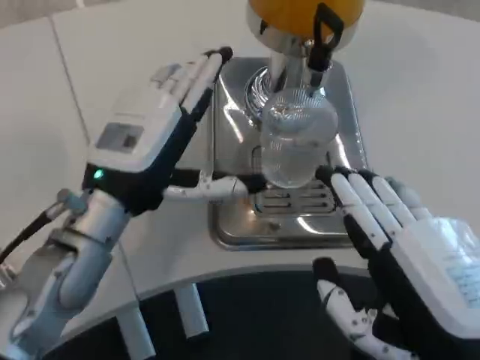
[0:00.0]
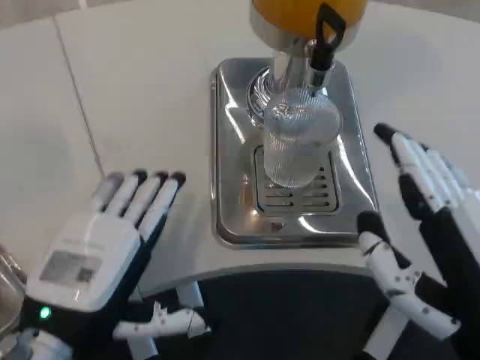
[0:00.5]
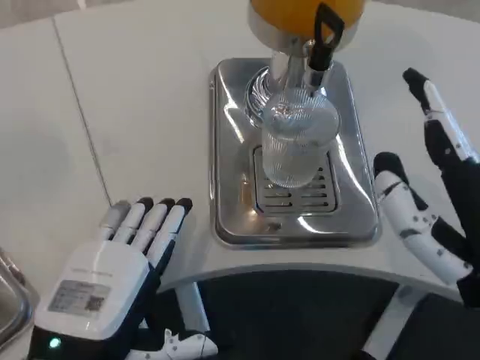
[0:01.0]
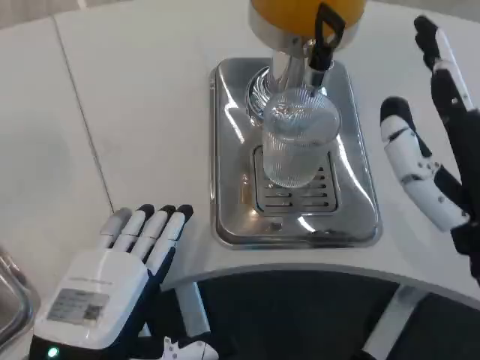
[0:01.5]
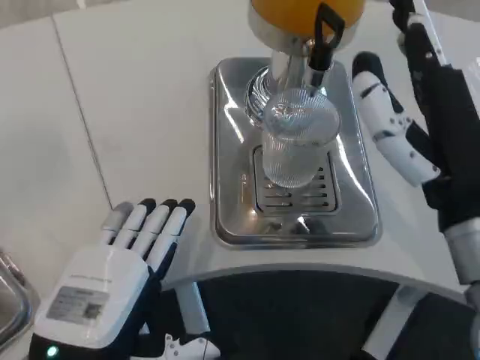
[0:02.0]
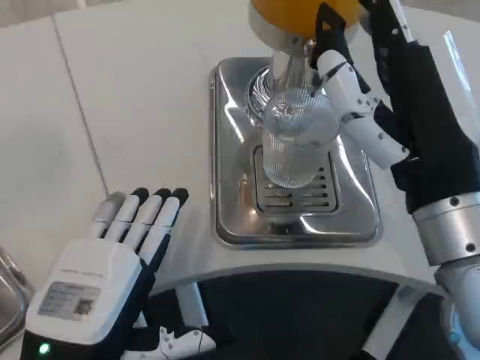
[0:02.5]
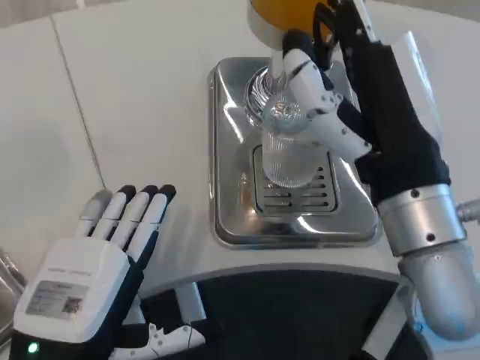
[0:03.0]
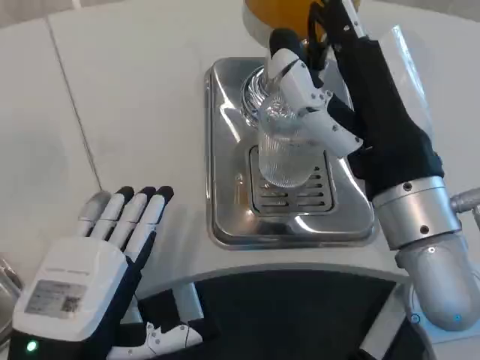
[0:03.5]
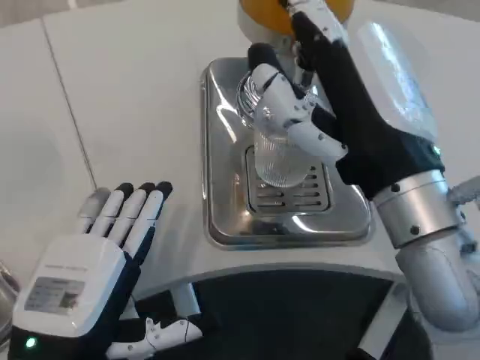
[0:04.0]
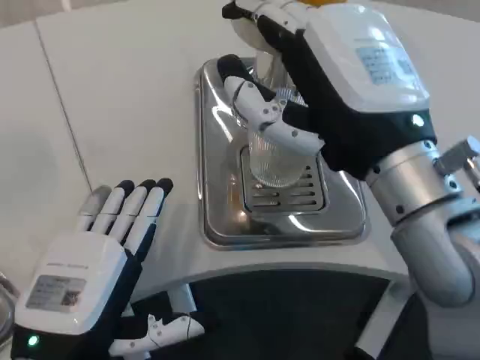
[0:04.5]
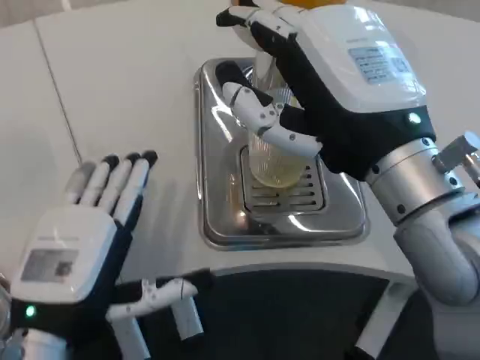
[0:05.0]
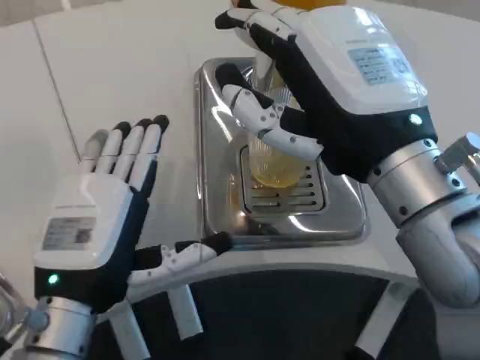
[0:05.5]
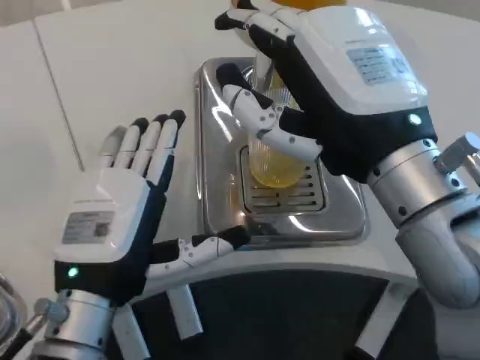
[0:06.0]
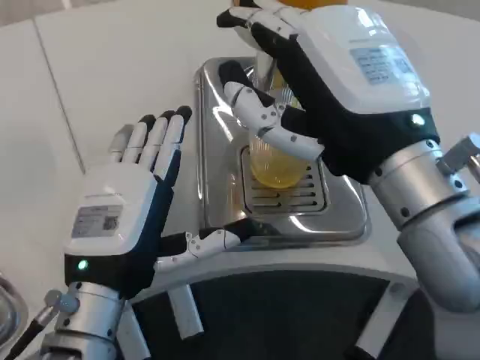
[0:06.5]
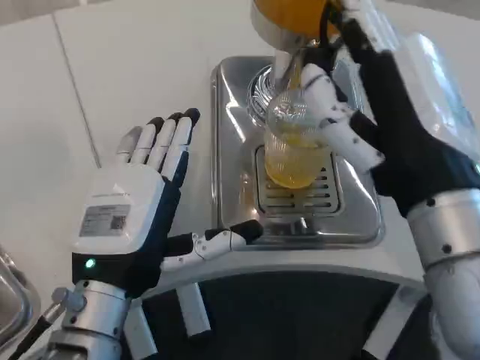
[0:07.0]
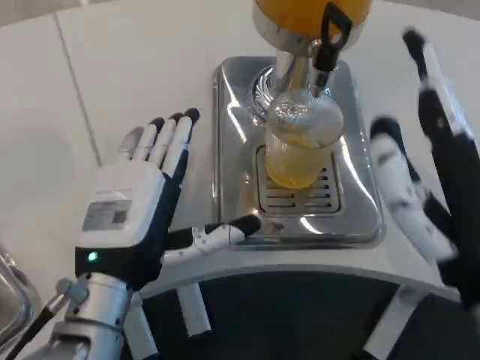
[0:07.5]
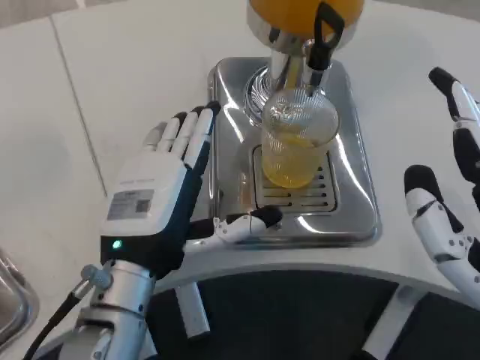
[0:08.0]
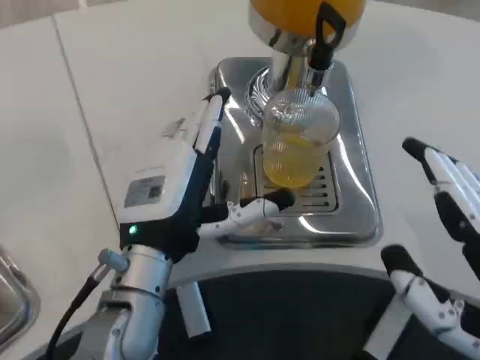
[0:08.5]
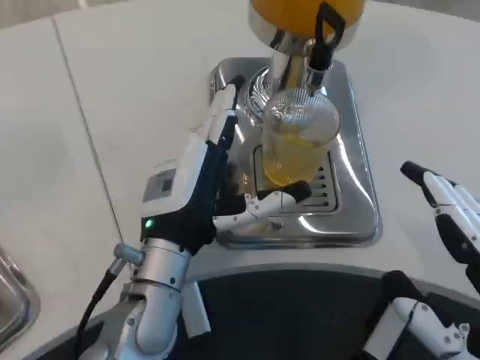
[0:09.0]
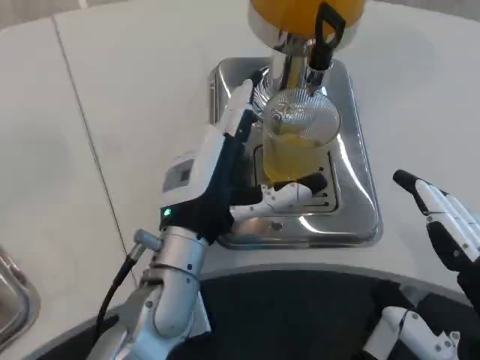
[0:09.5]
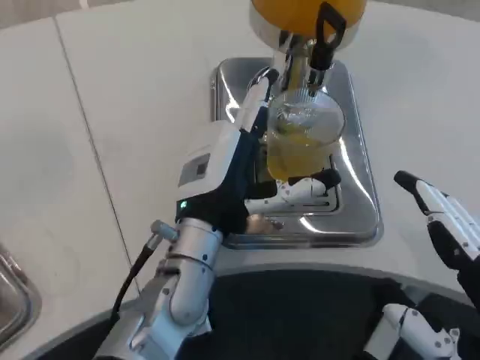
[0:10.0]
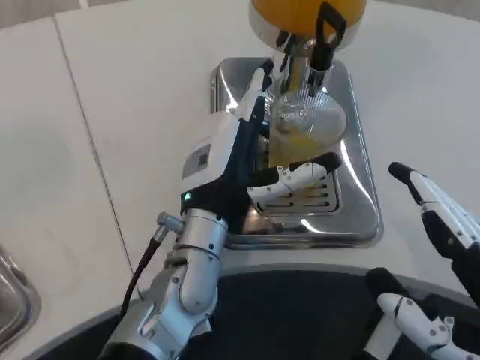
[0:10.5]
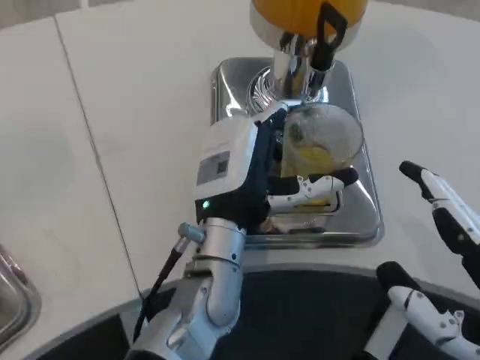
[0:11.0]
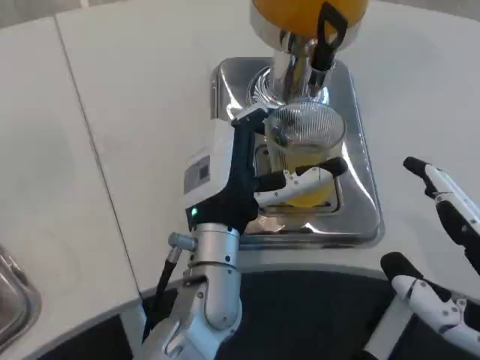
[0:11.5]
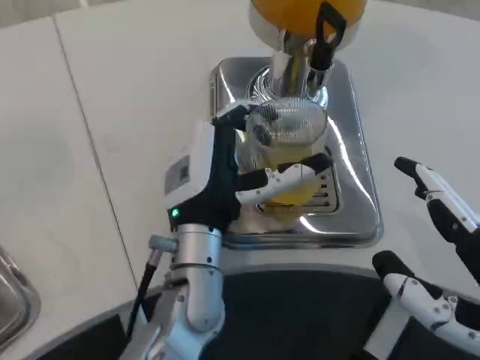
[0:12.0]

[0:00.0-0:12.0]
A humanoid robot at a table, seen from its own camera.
Task of the whole recording: Grasp the cup under the faucet to collect the drink, then remove the cup.
0:00.0 to 0:02.0: The left hand shifts roughly 15 cm backward and downward. Meanwhile the right hand travels forward by approximately 10 cm.
0:04.0 to 0:06.0: The left hand travels forward by approximately 5 cm.
0:06.0 to 0:08.0: The right hand goes roughly 15 cm backward, to the right and downward.
0:08.0 to 0:10.0: The left hand shifts about 10 cm forward and to the right.
0:10.0 to 0:12.0: The hands stay close to where they were, moving slightly.

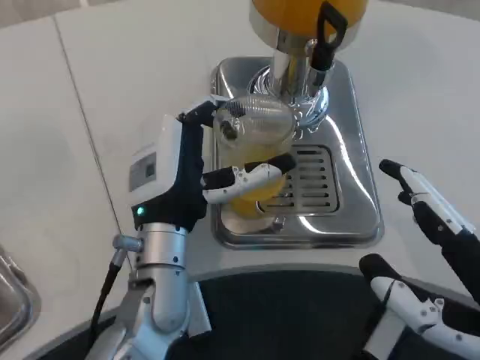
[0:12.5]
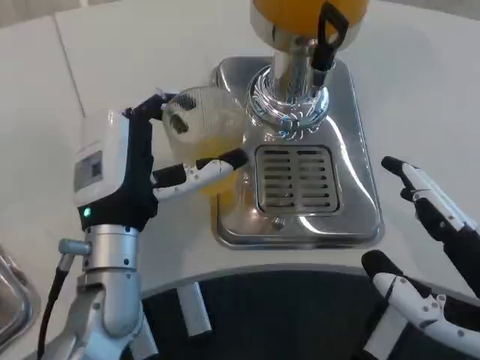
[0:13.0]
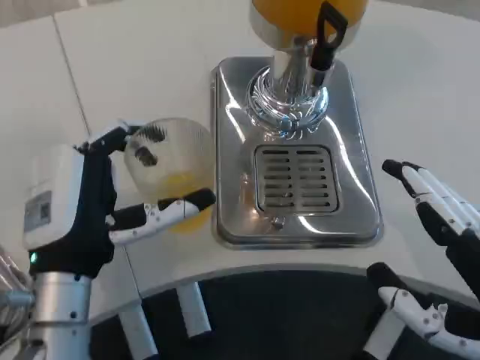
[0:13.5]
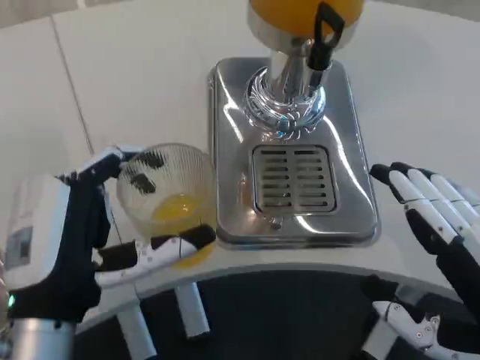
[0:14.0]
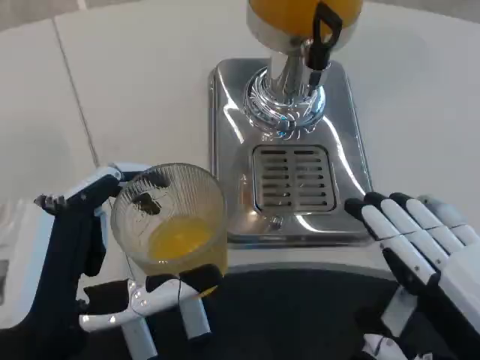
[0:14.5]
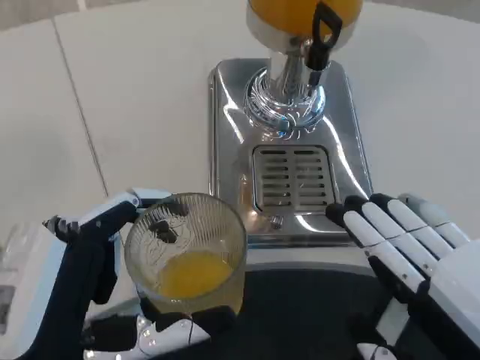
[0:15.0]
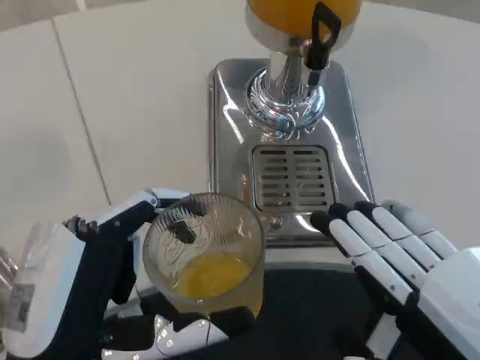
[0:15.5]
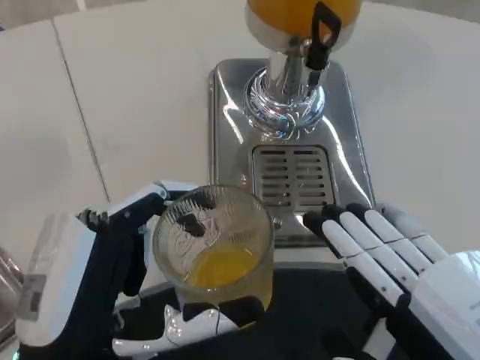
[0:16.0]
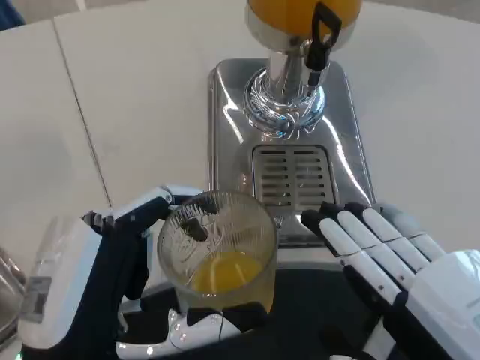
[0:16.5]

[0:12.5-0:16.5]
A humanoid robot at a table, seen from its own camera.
Task of the whole recording: Grasp the cup under the faucet to collect the drink, then remove the cup.
0:12.5 to 0:14.5: The left hand moves backward and to the left, about 15 cm.

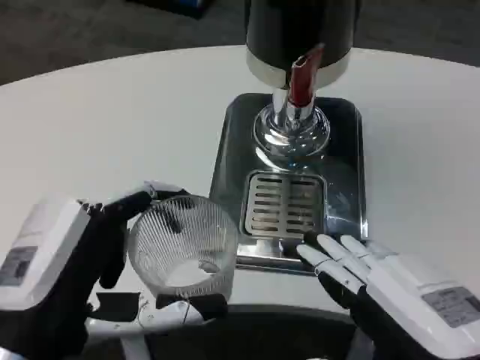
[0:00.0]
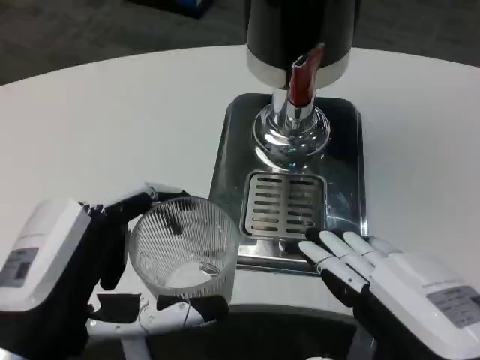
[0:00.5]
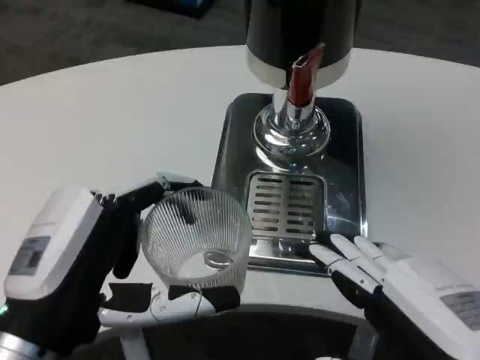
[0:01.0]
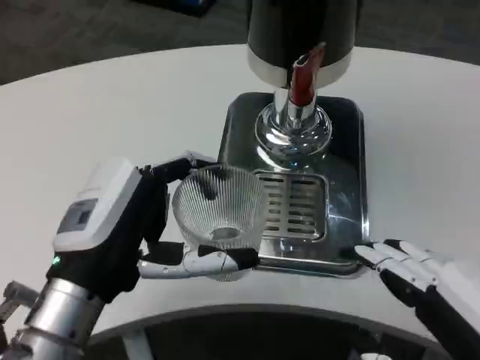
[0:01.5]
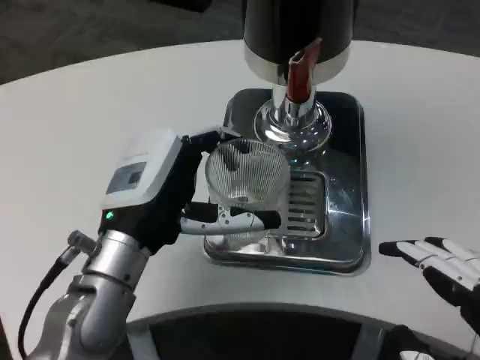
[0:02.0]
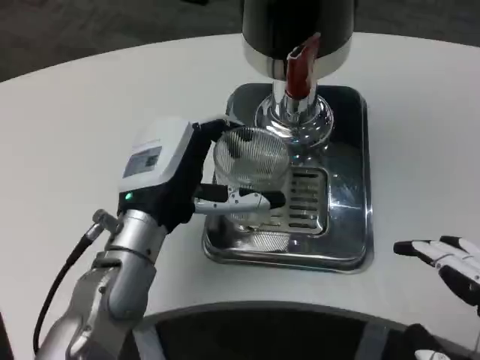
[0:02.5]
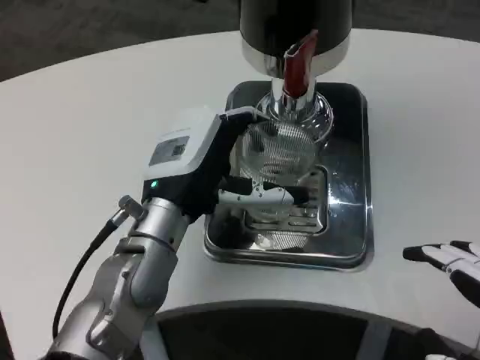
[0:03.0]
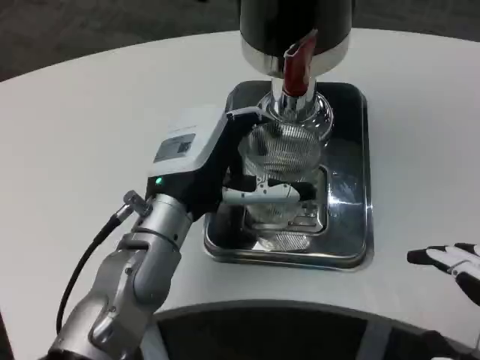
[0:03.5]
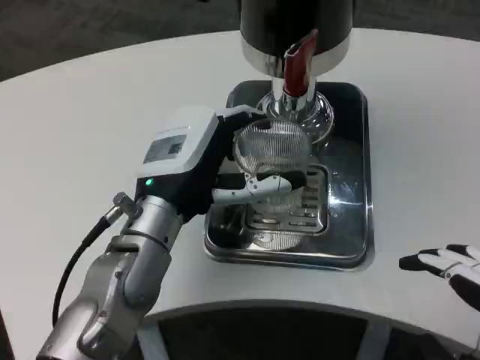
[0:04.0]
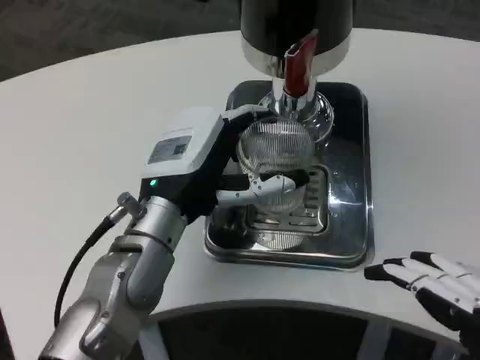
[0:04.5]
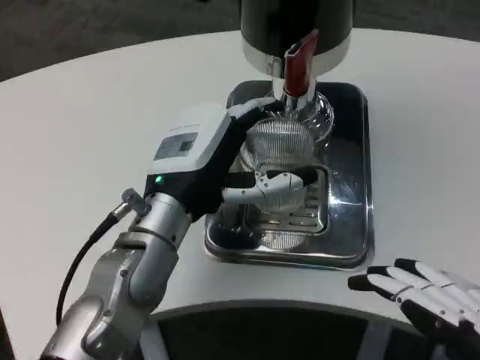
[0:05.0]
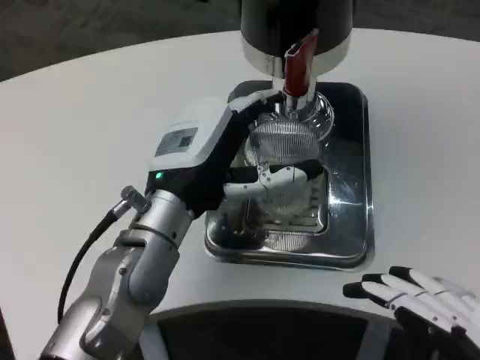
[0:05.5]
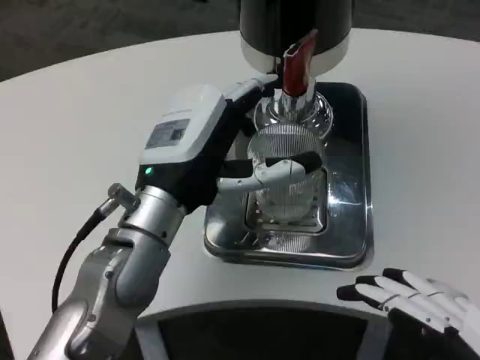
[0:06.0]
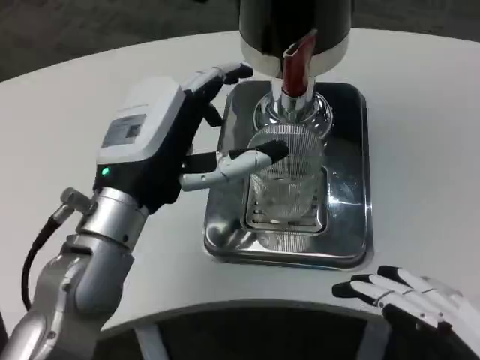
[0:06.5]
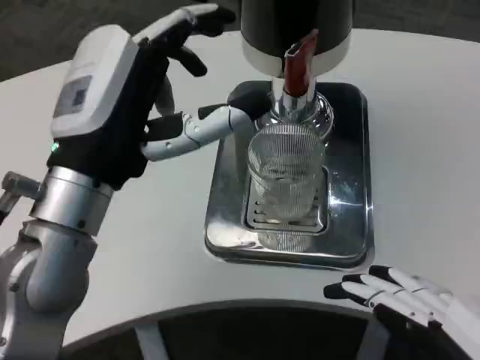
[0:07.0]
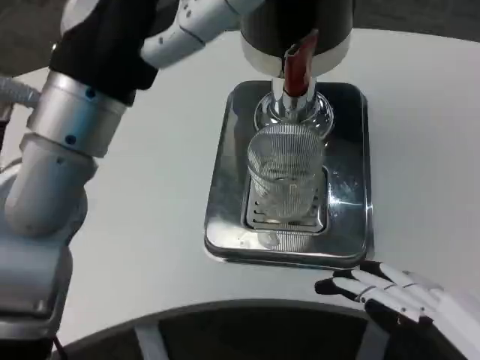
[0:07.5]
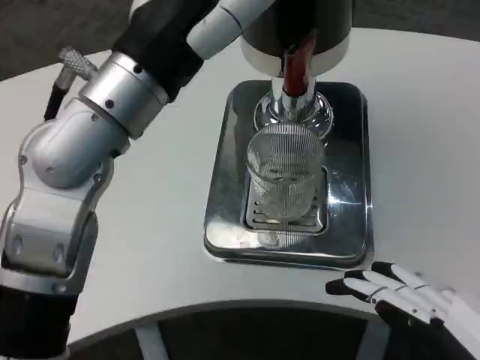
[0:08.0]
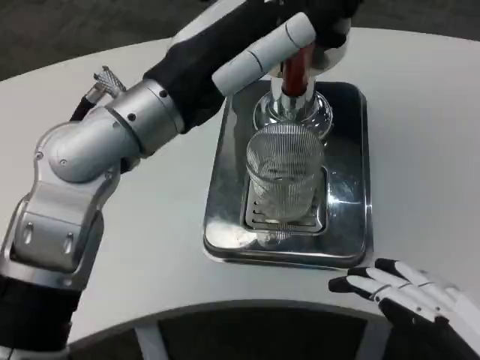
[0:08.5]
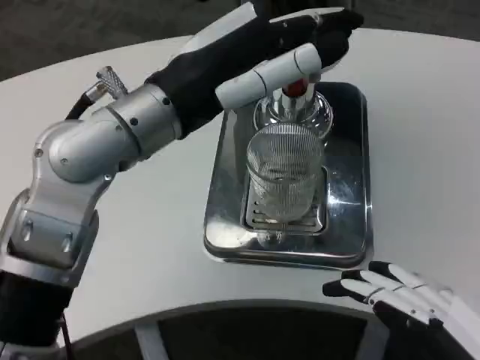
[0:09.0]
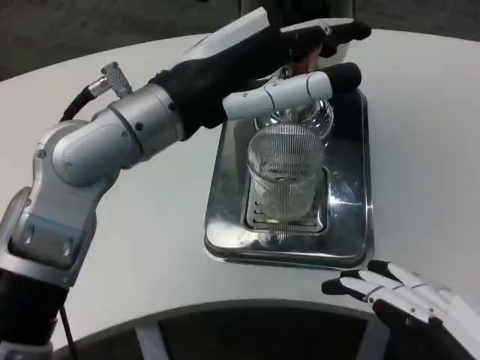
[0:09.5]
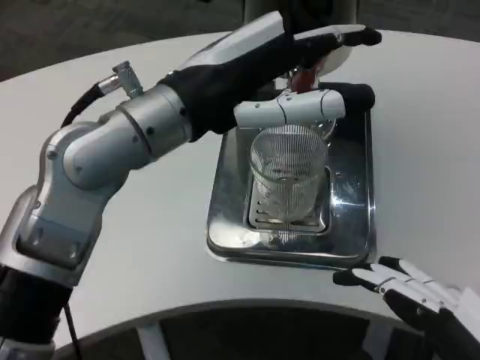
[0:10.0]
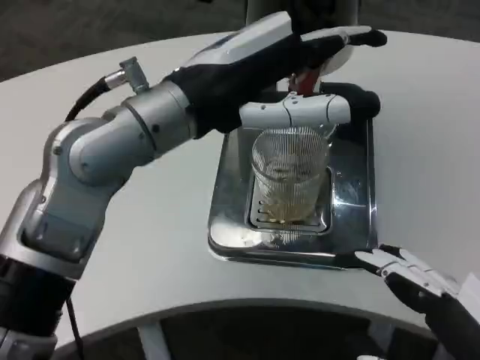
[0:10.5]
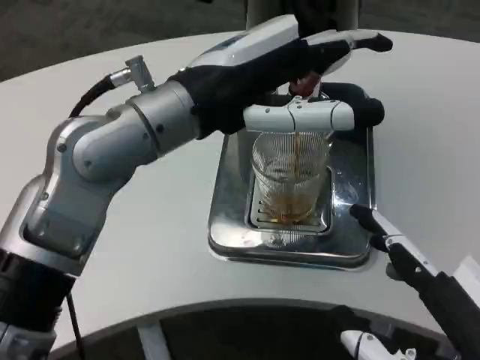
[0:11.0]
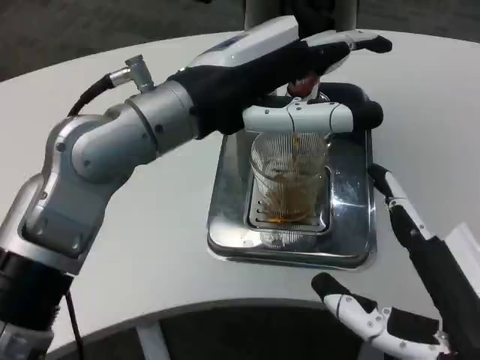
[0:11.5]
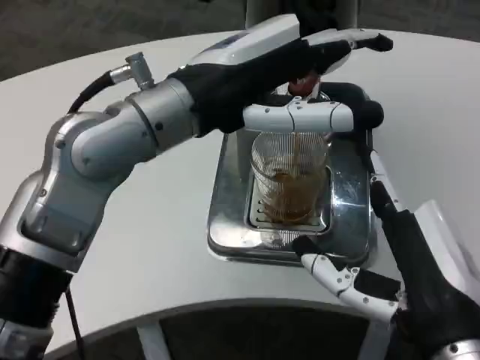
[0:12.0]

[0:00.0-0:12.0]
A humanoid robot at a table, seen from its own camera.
Task of the whole recording: Grasp the cup under the faucet to collect the drink, then remove the cup.
0:00.0 to 0:02.0: The right hand shifts by approximately 5 cm. The left hand shifts roughly 15 cm forward and to the right.
0:04.0 to 0:06.0: There are only small adjustments of the hands.
0:06.0 to 0:08.0: The left hand shifts some 10 cm upward.
0:10.0 to 0:12.0: The right hand goes some 10 cm forward and to the left.
